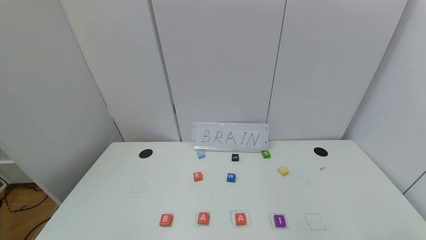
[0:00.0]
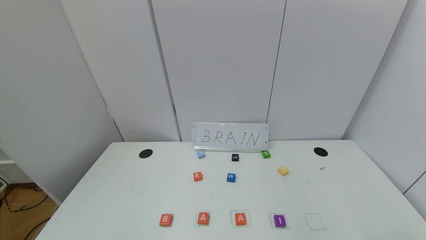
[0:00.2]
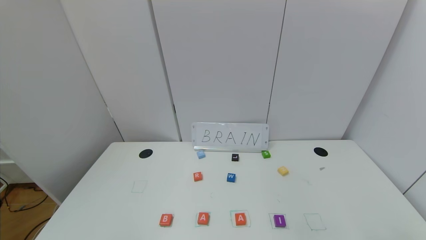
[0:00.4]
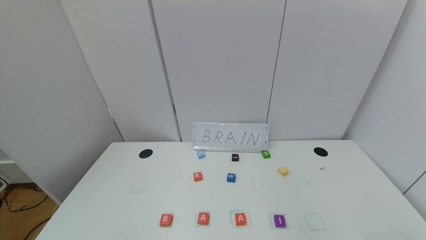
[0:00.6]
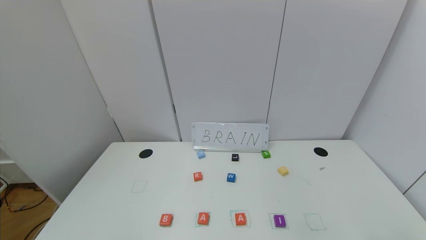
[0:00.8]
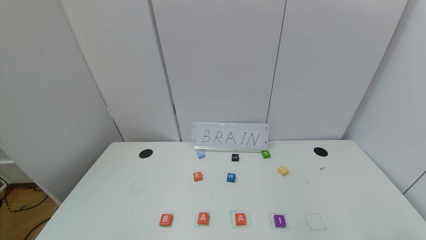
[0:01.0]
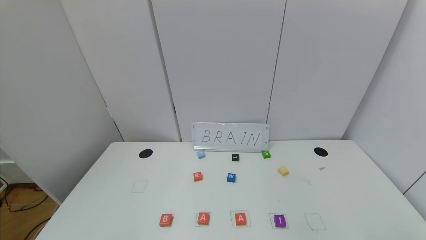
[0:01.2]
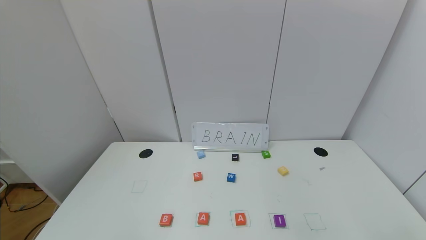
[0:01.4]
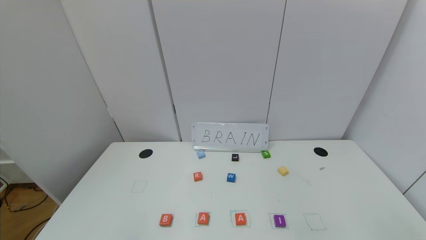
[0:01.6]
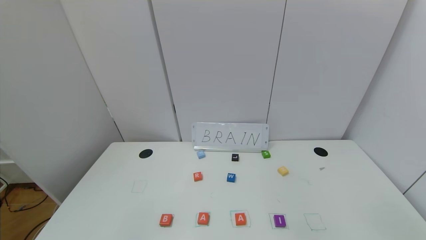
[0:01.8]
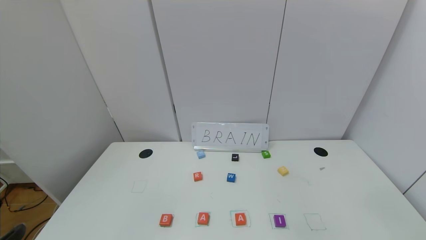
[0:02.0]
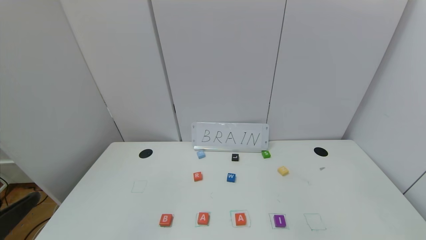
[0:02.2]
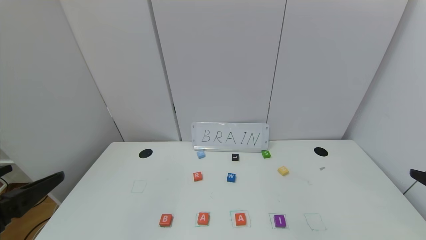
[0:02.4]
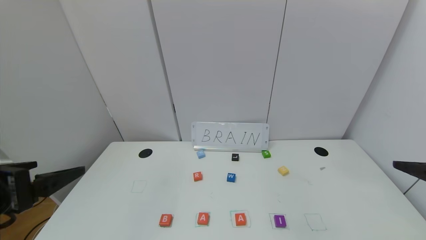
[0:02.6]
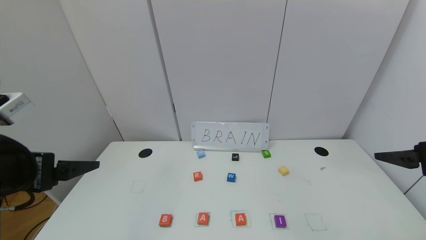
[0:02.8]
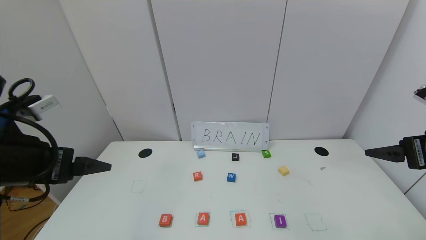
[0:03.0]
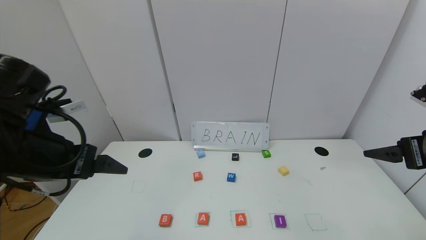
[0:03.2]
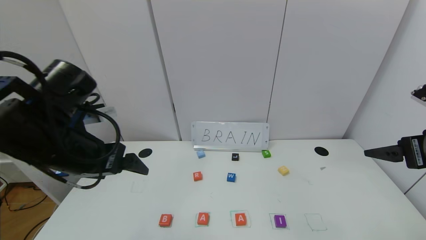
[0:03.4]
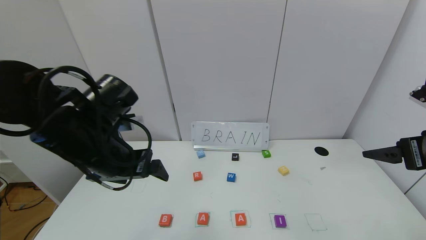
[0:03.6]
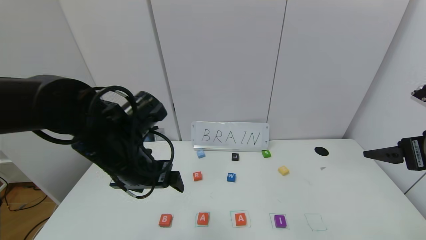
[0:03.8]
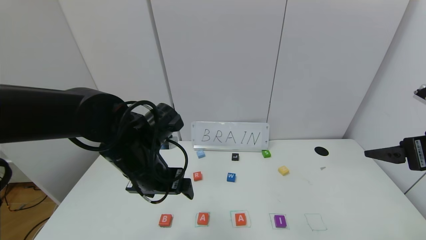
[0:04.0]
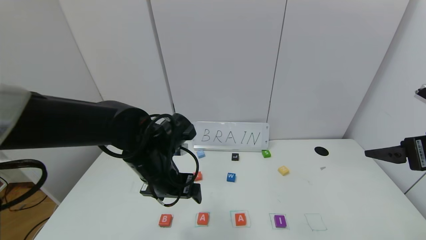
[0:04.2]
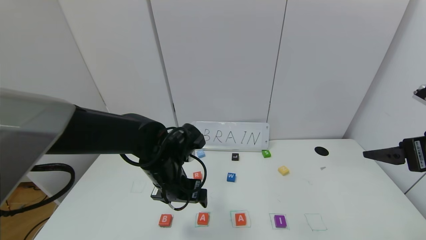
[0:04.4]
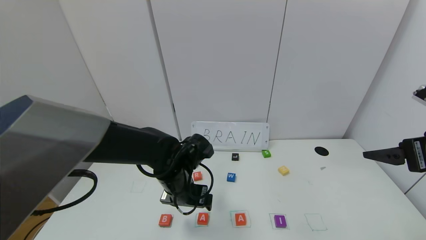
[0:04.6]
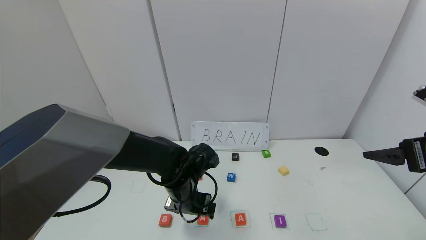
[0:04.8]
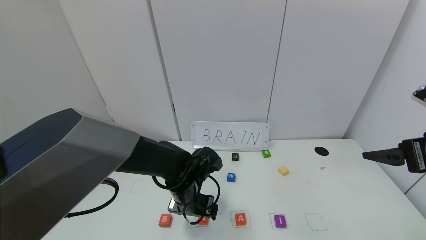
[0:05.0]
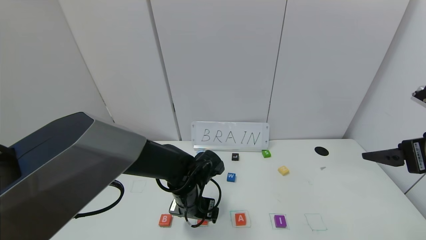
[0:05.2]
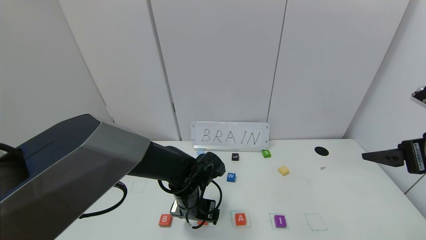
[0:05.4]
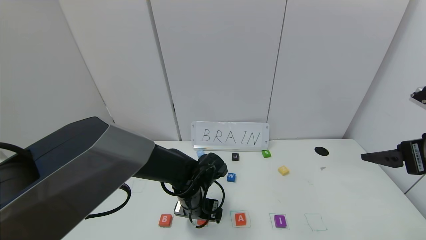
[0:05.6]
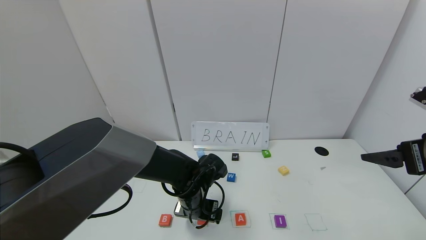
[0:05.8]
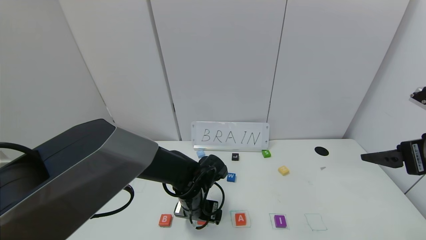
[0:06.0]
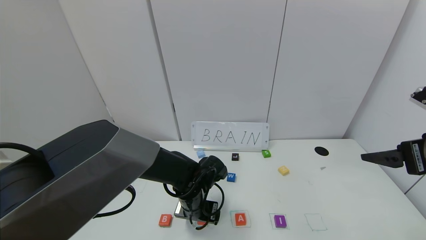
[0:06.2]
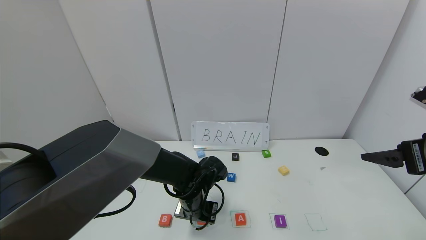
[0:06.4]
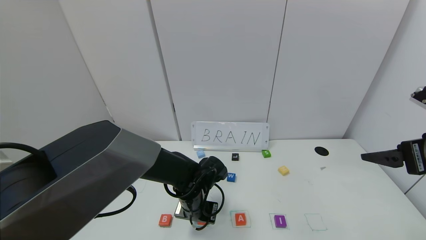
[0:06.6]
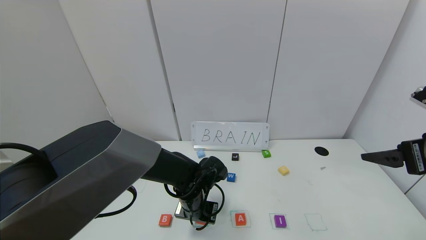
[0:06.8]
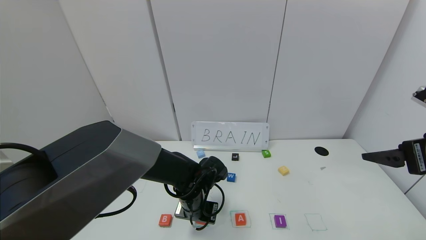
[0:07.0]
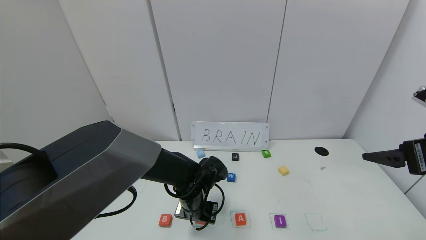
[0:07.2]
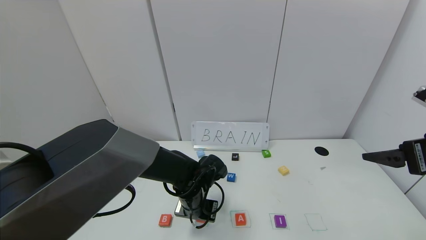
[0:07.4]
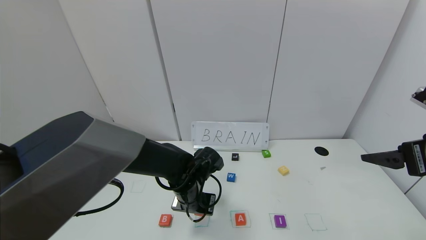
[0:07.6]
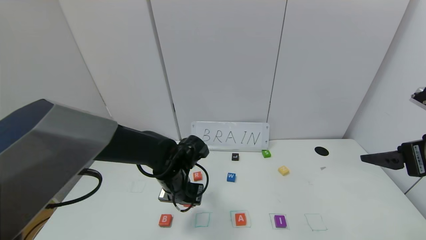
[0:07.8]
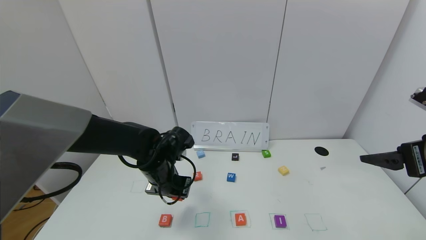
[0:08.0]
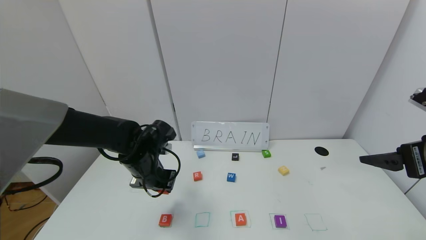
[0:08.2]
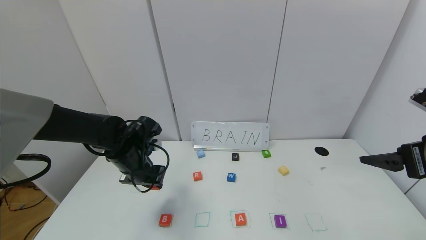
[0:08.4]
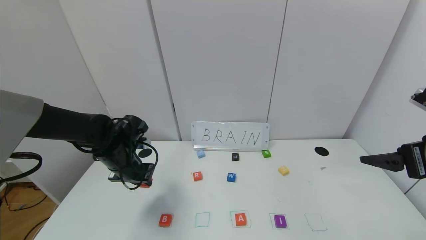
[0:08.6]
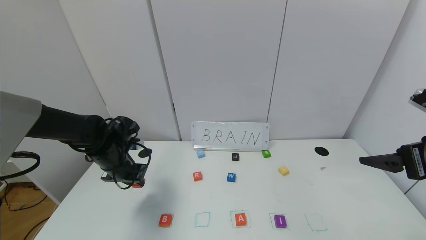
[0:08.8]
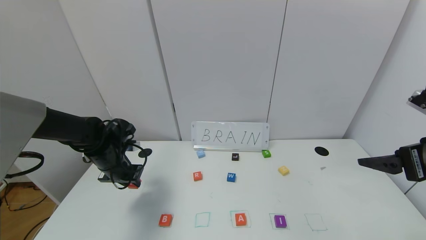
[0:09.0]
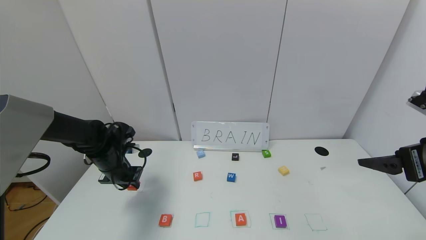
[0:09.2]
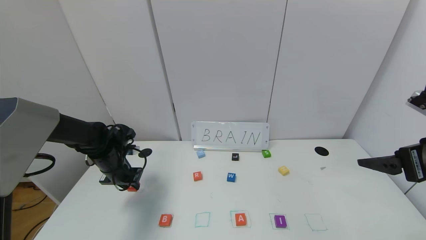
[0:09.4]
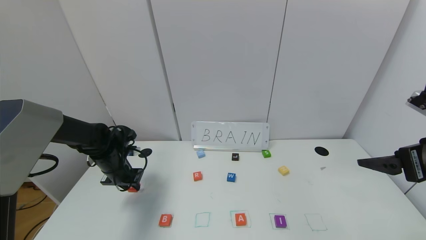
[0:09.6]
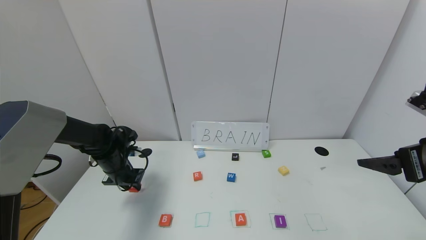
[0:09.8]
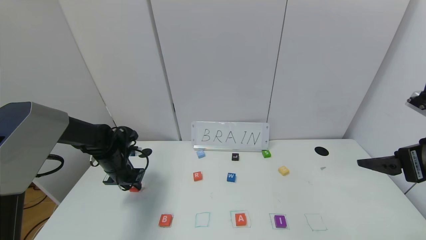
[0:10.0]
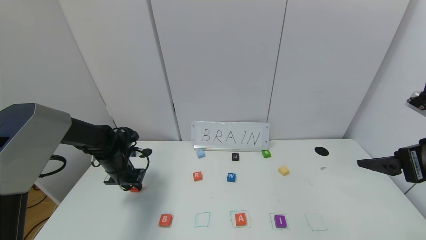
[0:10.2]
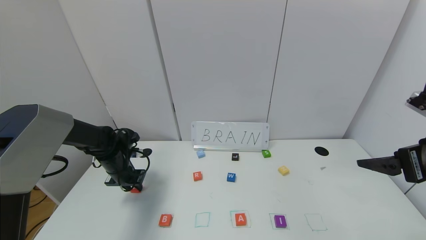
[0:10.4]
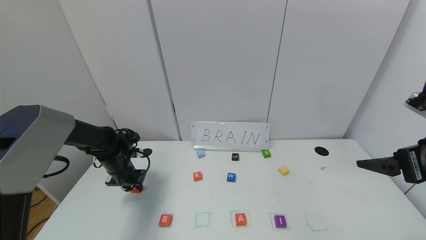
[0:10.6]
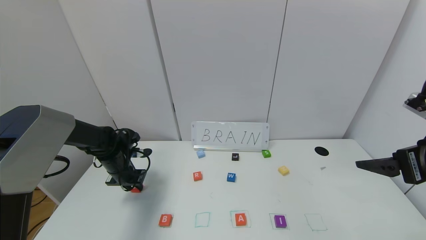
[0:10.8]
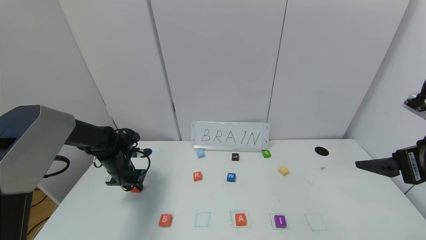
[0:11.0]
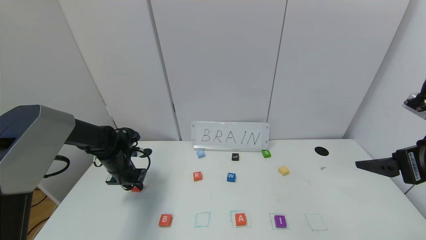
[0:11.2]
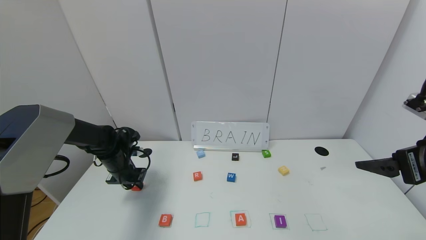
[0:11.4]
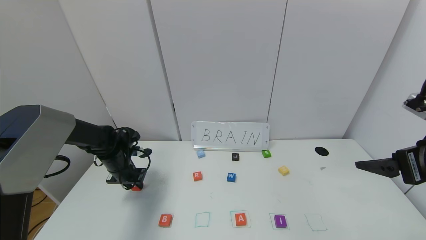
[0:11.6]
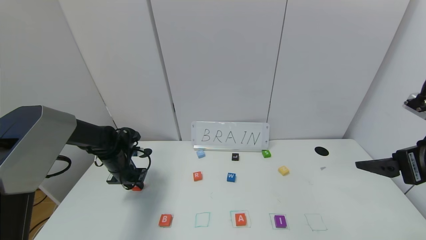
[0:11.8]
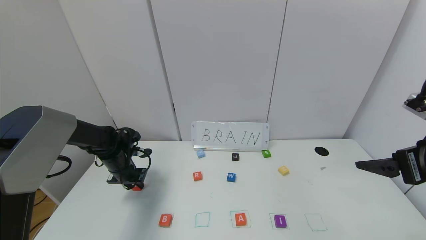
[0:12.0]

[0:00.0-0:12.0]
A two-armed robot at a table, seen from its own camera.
Task of the whole recording: use the gripper to find blocks with the letters b, a, a, and i on the table and arrange them into BAAI, then find r and N and turn the arranged baai into brian.
0:01.6 to 0:03.0: Both grippers move forward and upward, approximately 25 cm.
0:03.0 to 0:04.4: The left gripper goes about 25 cm to the right, downward and forward.
0:04.4 to 0:06.0: The left gripper heads downward, covering roughly 10 cm.
0:06.0 to 0:07.6: The left gripper closes up.
0:07.6 to 0:09.0: The left gripper is displaced to the left by about 20 cm.
0:09.0 to 0:10.4: The left gripper changes place by roughly 5 cm.
0:10.4 to 0:12.0: Both grippers stay put.

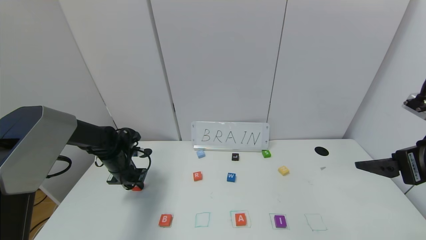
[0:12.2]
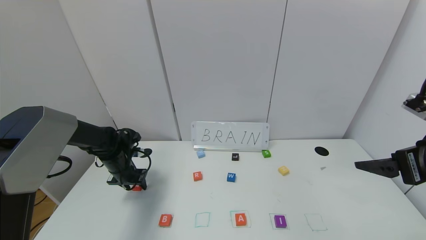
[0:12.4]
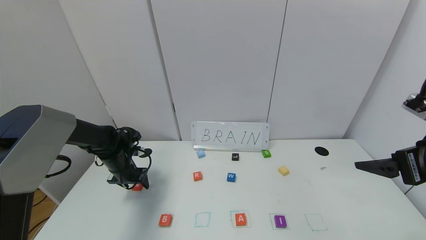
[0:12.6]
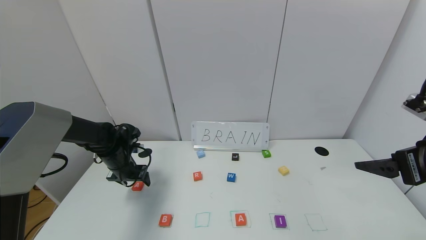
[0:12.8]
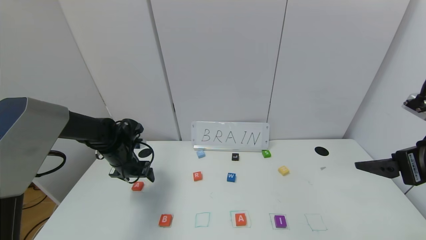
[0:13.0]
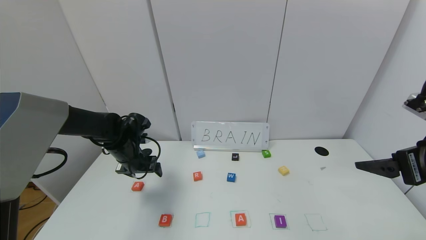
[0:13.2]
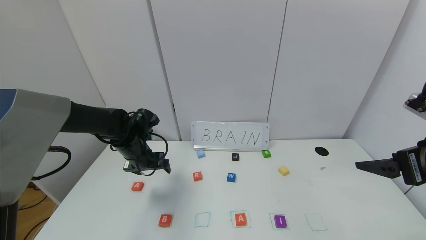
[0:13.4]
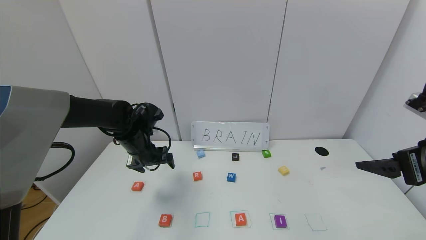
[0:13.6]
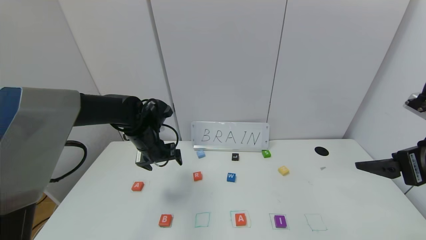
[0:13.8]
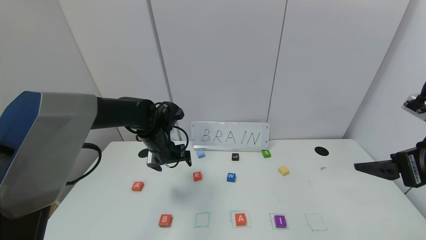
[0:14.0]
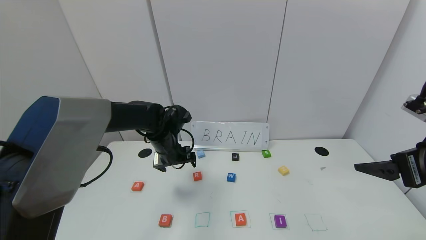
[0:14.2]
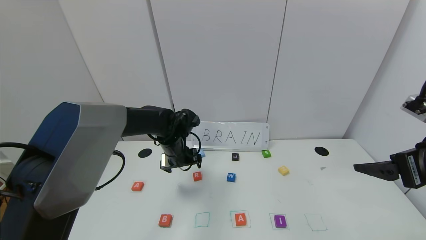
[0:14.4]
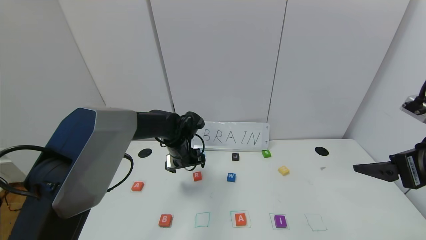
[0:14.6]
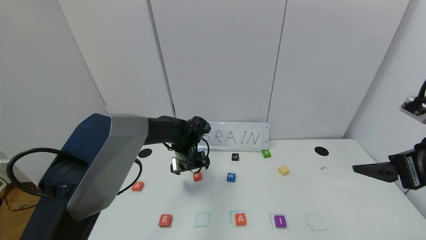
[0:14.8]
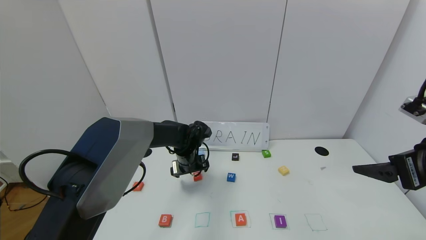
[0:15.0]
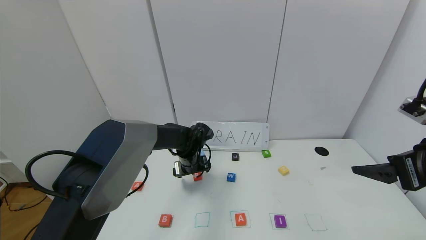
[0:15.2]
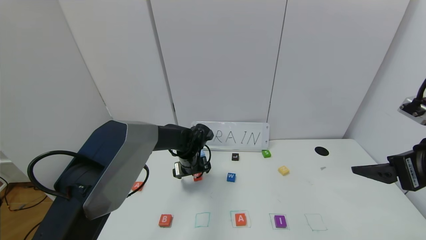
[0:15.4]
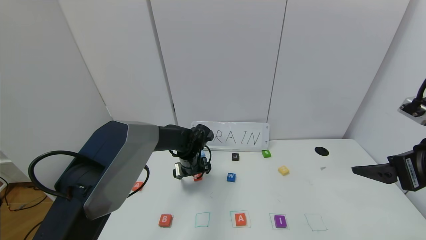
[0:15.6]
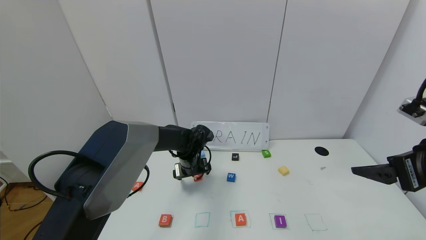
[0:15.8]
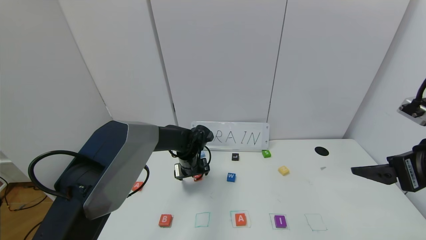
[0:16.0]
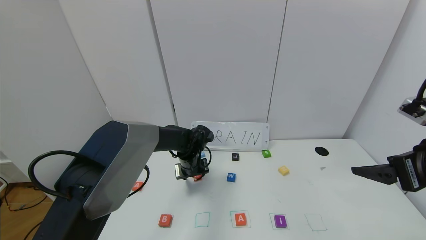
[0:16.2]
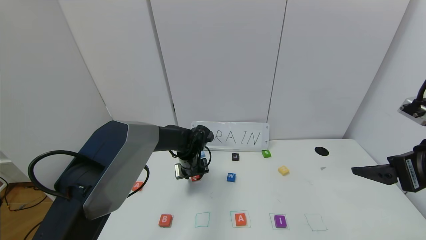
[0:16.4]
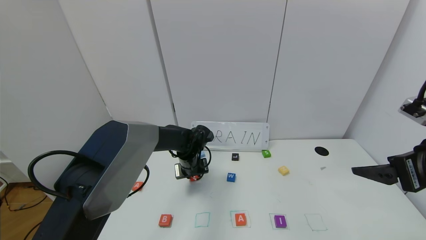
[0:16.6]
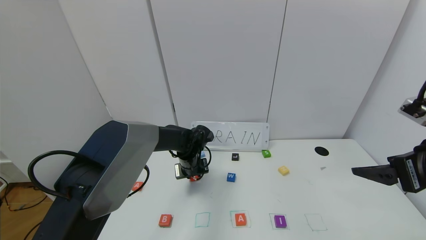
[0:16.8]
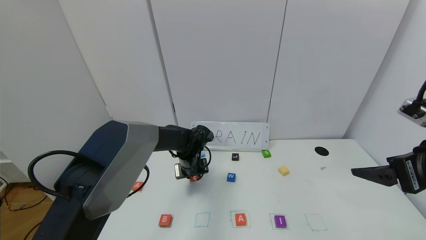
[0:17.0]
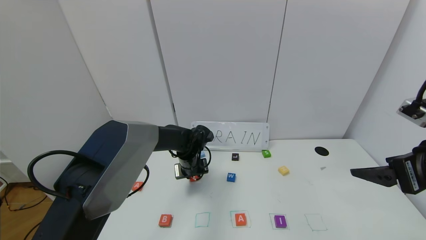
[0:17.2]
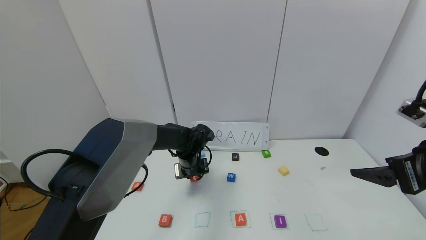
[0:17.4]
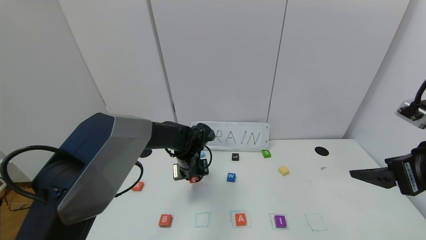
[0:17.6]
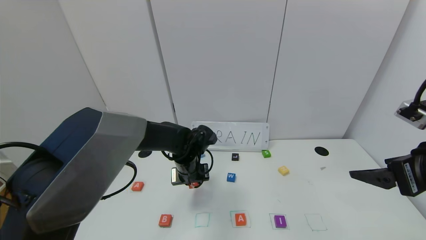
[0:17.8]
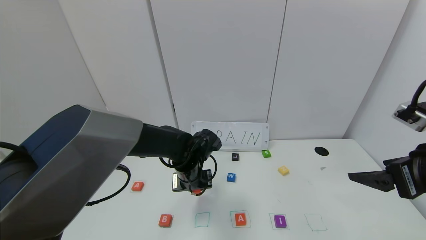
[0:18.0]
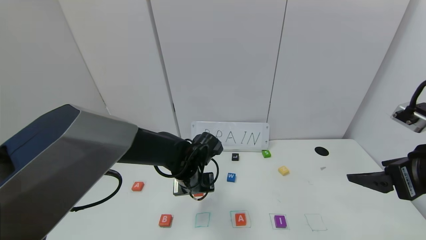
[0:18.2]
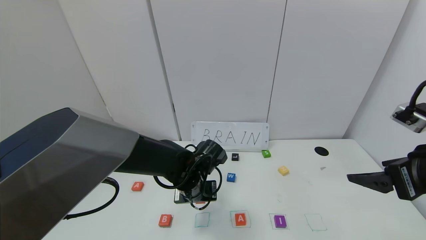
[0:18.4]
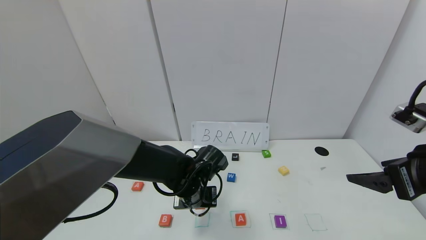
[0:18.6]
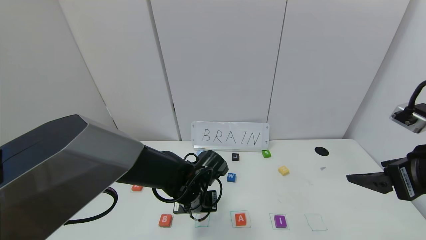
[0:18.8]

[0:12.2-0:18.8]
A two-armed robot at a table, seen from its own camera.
Task of the whole recording: use the gripper to find blocks with the letters b, a, a, and i on the table and arrange them into BAAI, then find r and N and turn the arranged baai into brian.
0:12.2 to 0:13.8: The left gripper shifts approximately 15 cm to the right and upward, and opens.
0:13.8 to 0:15.4: The left gripper is displaced to the right and downward by roughly 15 cm.
0:17.2 to 0:18.8: The left gripper moves backward, about 15 cm.
